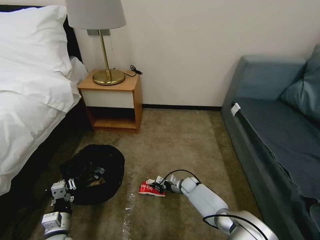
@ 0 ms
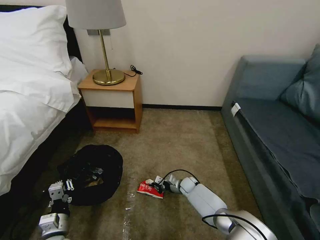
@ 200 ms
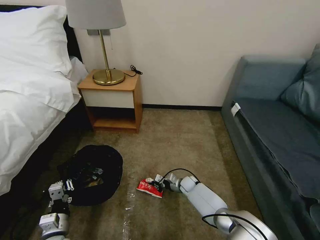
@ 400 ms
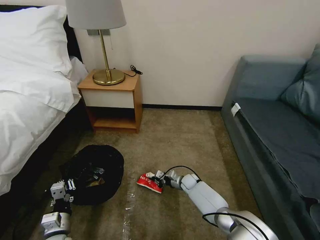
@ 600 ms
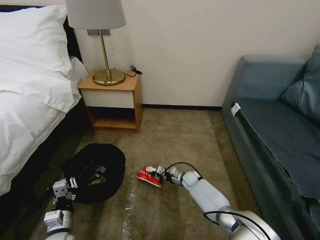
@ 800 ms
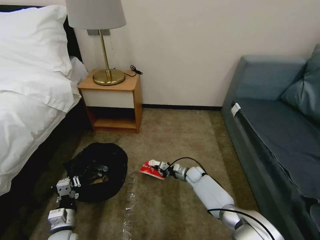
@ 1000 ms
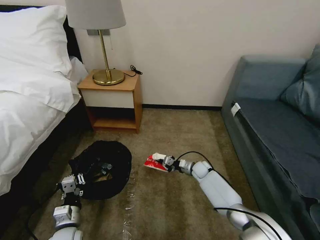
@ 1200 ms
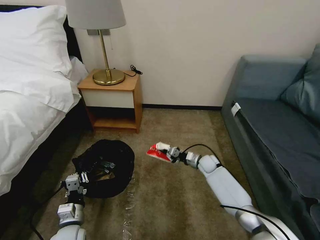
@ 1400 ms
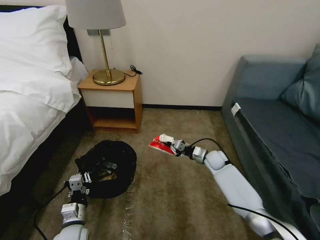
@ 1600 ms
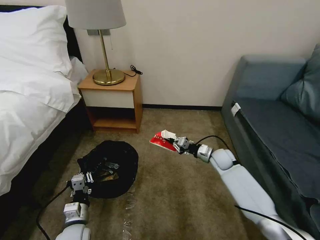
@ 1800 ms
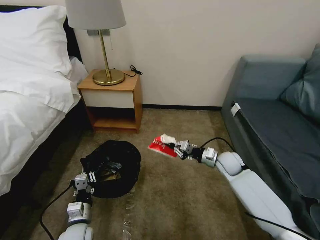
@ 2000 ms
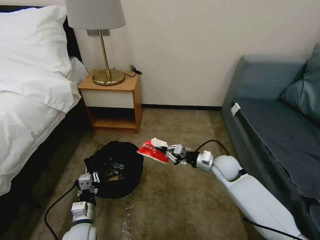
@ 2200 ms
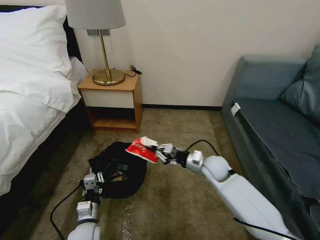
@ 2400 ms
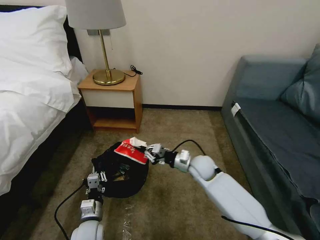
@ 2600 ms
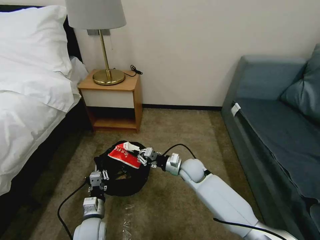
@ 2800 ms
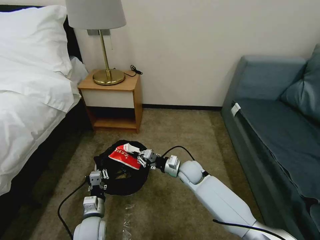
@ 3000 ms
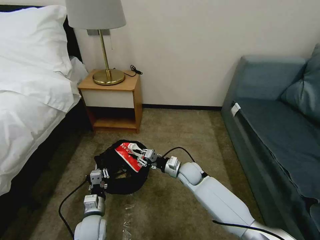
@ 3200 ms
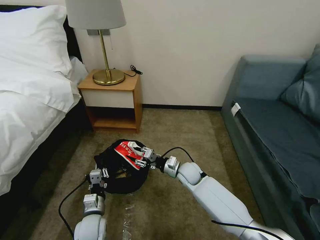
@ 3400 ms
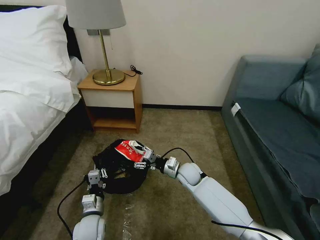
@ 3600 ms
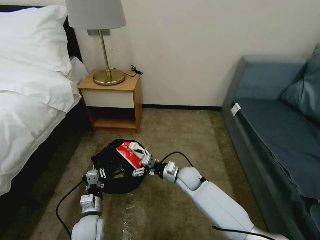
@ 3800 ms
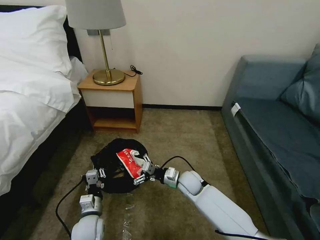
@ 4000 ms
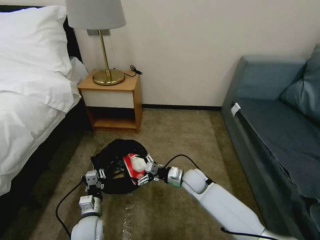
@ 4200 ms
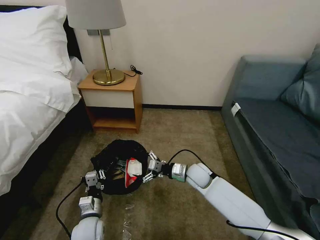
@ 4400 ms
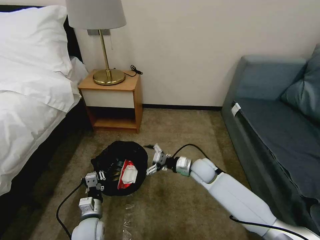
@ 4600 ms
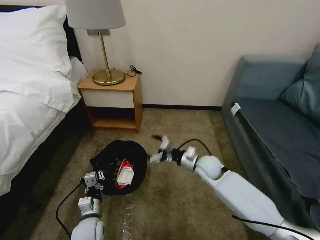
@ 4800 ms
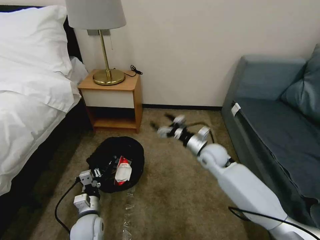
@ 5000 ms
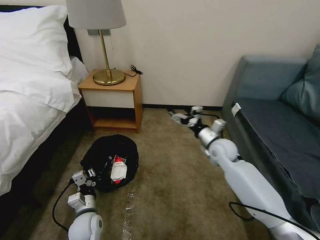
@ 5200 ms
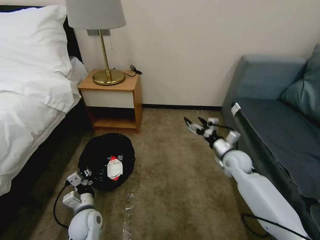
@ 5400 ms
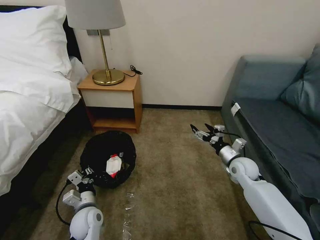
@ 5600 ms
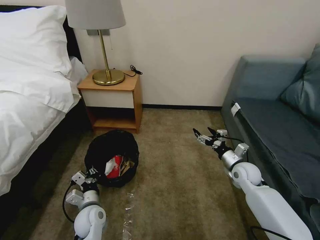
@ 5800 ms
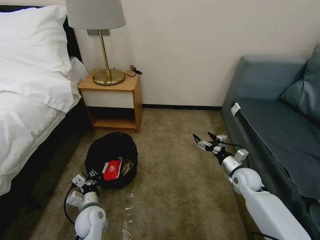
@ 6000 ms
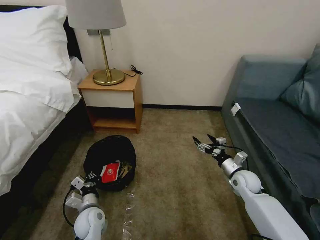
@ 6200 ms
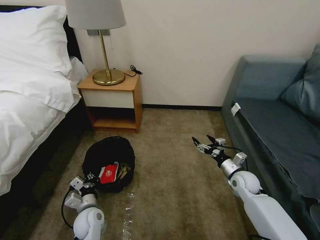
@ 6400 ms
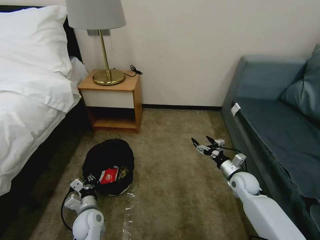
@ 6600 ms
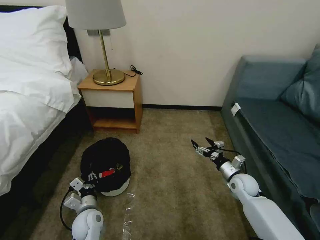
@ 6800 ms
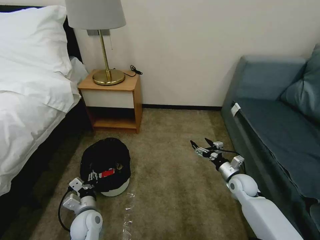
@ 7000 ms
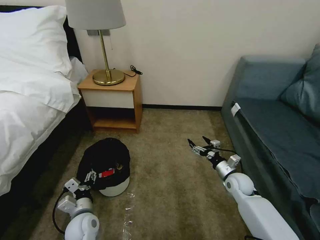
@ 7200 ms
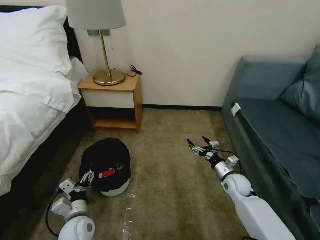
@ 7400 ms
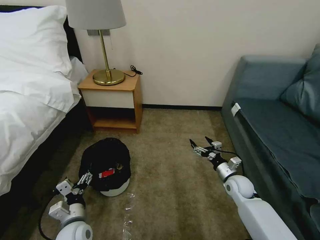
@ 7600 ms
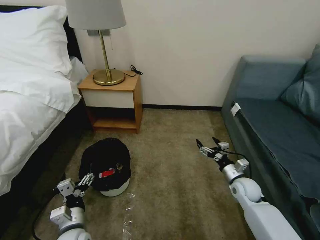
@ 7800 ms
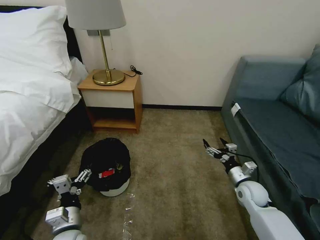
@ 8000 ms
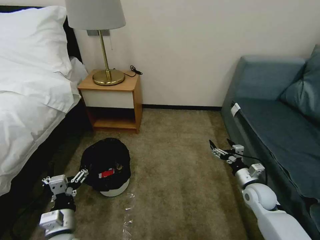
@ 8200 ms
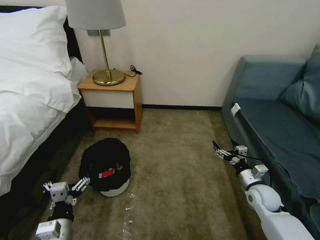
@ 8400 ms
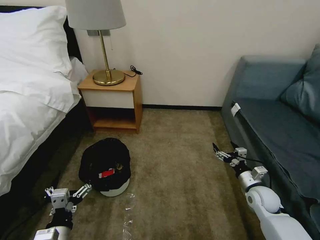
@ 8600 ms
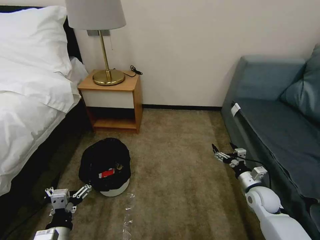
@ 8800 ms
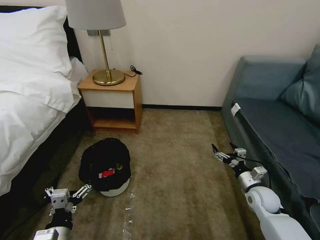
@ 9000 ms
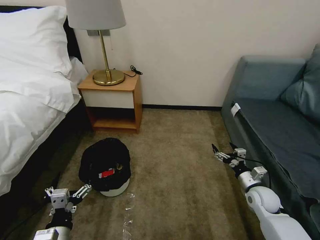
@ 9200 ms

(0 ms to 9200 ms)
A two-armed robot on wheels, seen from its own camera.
Task of the whole recording: Pick up the trash bin, then pick up the garbage on the floor and place it into the trash bin.
0 ms - 1600 ms: The right gripper is displaced upward and to the right by approximately 20 cm.
1600 ms - 3000 ms: The left gripper shifts by approximately 5 cm; the right gripper goes roughly 15 cm to the left and backward.
3000 ms - 4600 ms: The right gripper opens.
4600 ms - 6200 ms: The right gripper moves to the right, about 15 cm.
6200 ms - 7600 ms: The left gripper shifts about 5 cm backward, and opens up.
7600 ms - 9200 ms: The right gripper heads to the right and backward, covering some 10 cm, while the left gripper moves backward, roughly 10 cm.

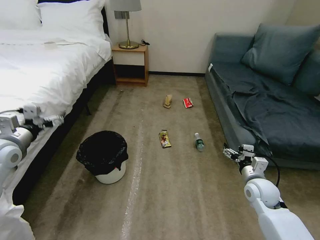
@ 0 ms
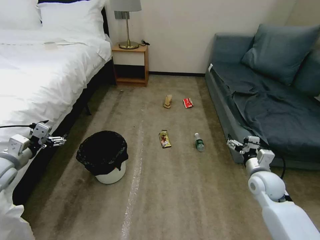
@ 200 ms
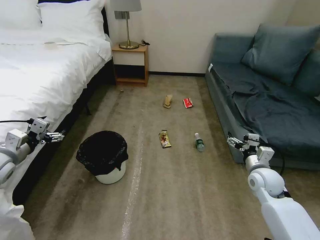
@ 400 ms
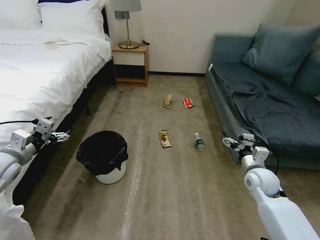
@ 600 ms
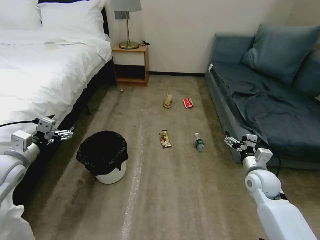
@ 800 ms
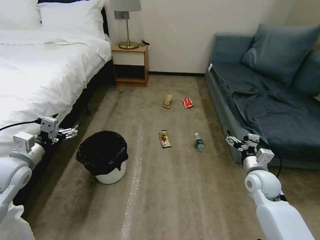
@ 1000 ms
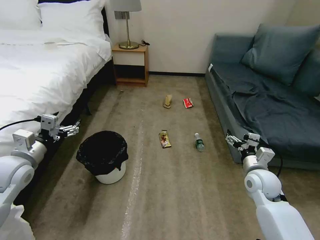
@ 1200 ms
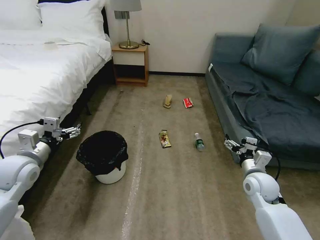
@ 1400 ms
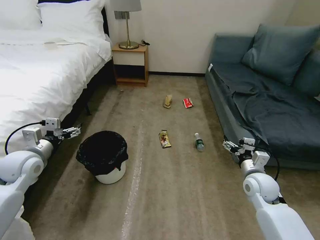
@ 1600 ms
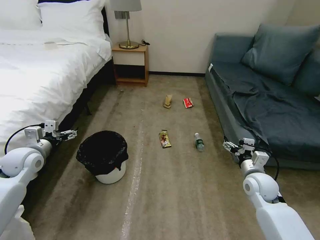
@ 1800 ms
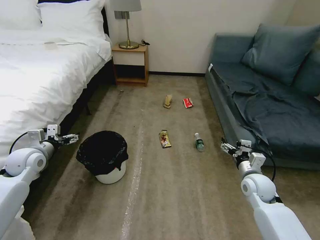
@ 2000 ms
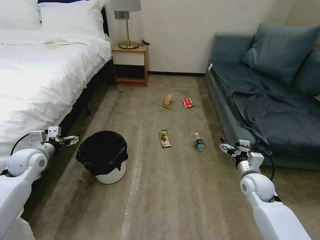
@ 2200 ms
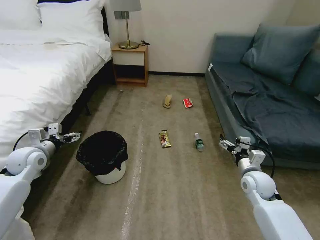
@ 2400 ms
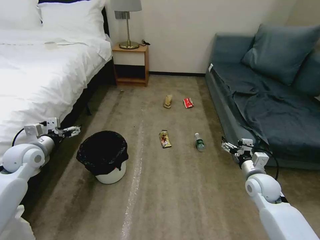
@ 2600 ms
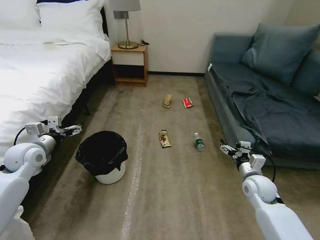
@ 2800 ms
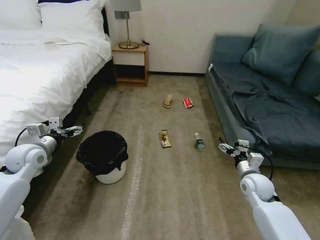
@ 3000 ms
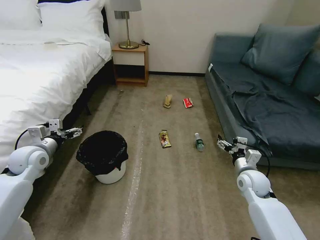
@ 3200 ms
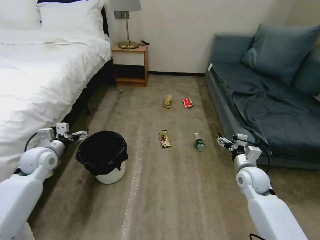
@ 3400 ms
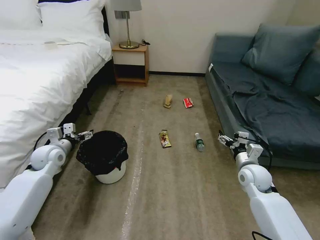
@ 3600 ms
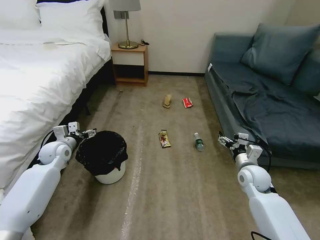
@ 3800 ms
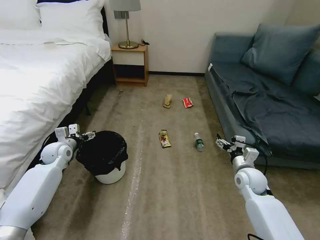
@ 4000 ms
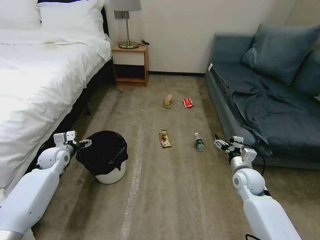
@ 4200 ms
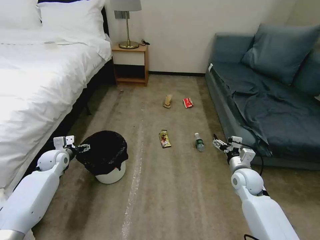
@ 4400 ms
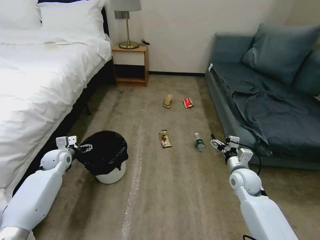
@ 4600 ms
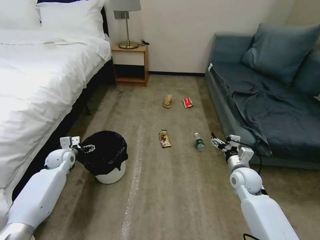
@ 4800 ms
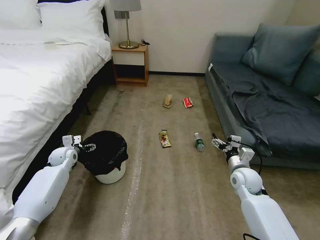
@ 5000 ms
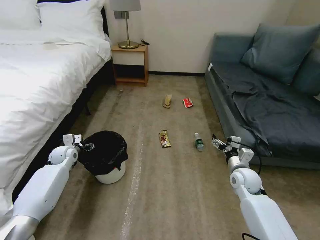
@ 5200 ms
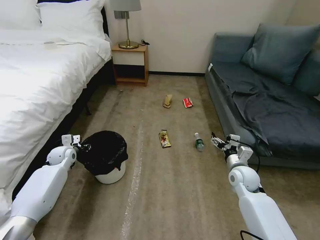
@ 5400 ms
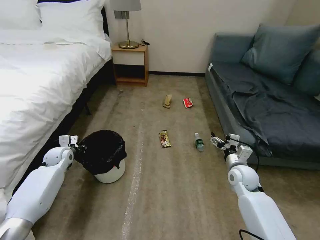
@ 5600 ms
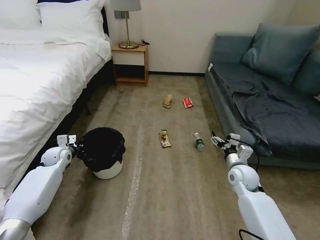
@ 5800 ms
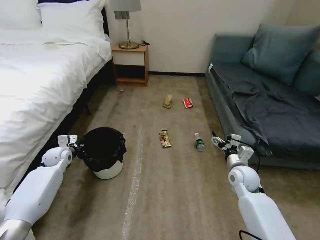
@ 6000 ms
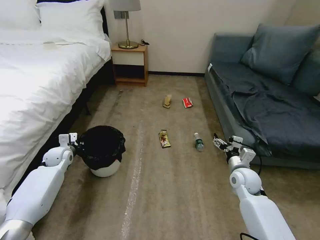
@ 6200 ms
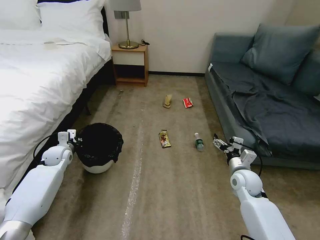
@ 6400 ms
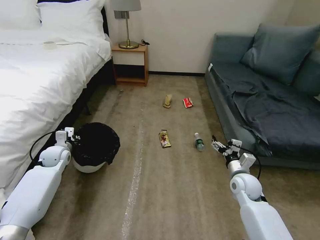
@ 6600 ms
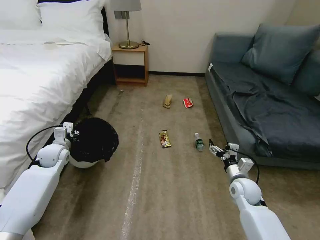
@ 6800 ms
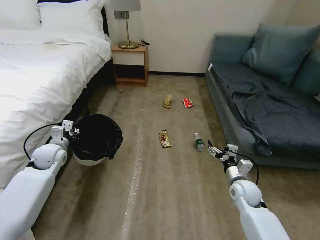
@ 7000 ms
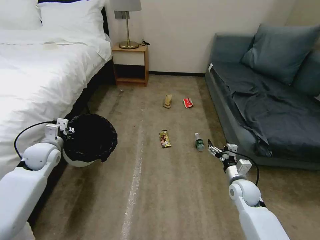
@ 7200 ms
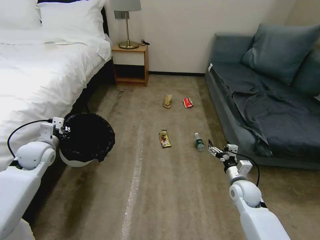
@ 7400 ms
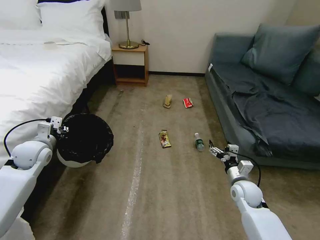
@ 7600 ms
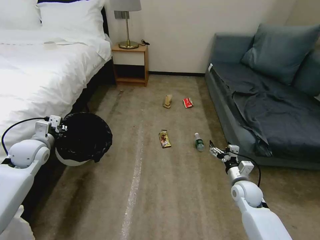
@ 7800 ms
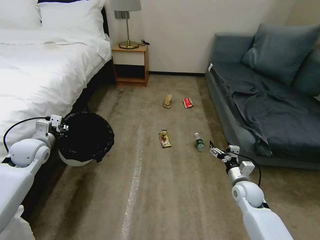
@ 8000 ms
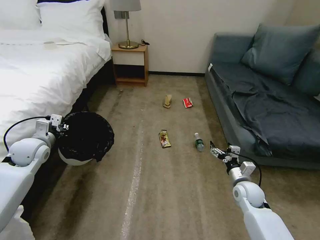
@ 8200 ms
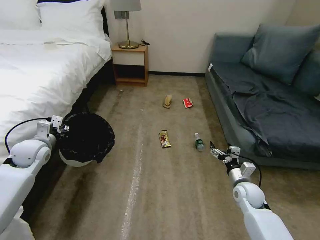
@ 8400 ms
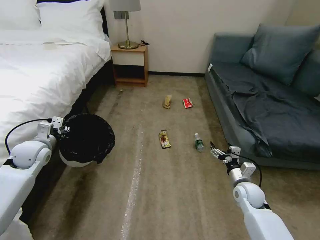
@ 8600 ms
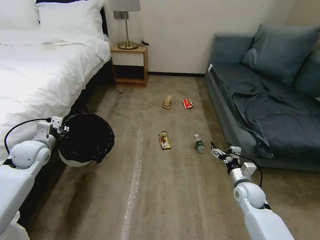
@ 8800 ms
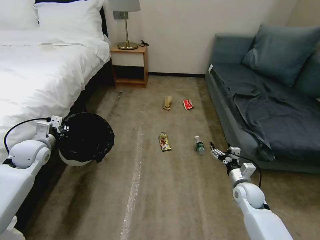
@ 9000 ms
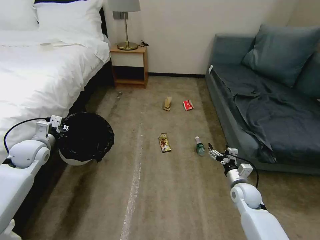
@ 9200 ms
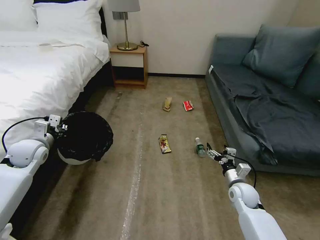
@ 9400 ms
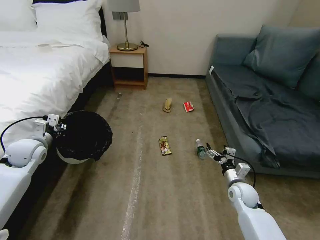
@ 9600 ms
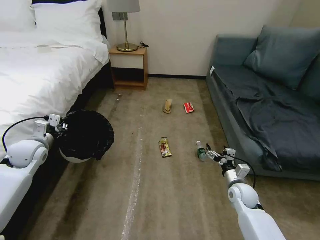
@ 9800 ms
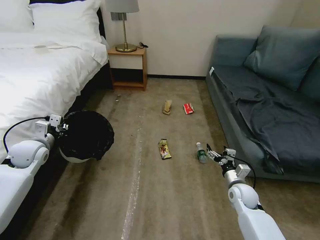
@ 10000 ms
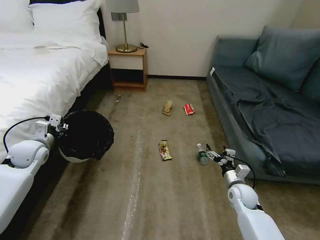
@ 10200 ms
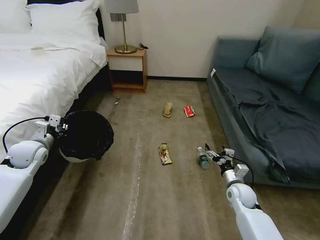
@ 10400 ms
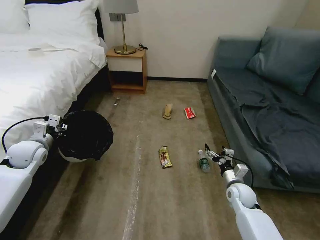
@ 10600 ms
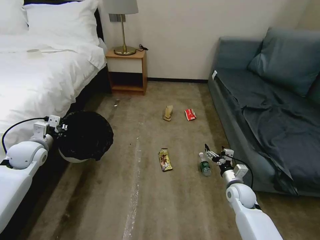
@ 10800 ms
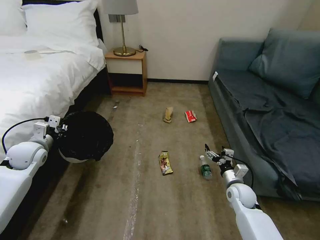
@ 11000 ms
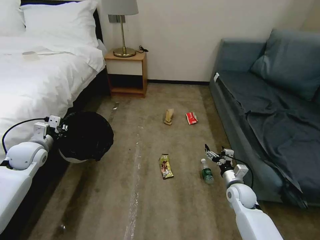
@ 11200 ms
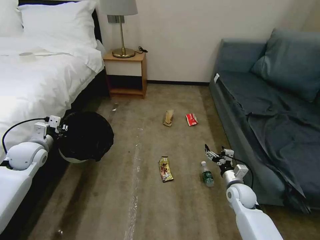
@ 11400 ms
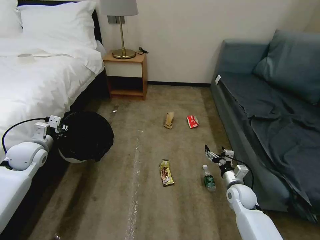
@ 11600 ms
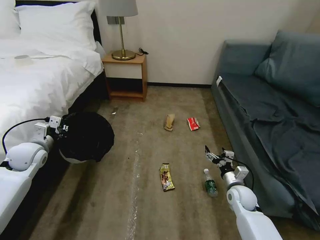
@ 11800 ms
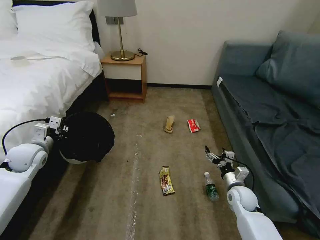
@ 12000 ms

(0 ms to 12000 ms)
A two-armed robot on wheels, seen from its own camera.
Task of the whole recording: Pick up the trash bin, then pick up the garbage on the floor and place it into the trash bin.
1600 ms - 3000 ms: The grippers stay close to where they were, moving slightly.
3000 ms - 4400 ms: The left gripper is displaced downward and forward by roughly 15 cm.
4400 ms - 6000 ms: The left gripper closes up.
6000 ms - 7600 ms: The right gripper changes place by approximately 5 cm, while the left gripper shifts approximately 15 cm upward and backward.
7600 ms - 10400 ms: The grippers stay close to where they were, moving slightly.

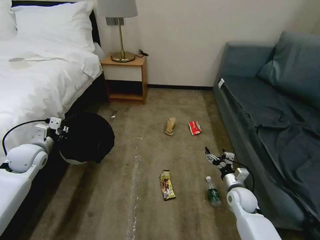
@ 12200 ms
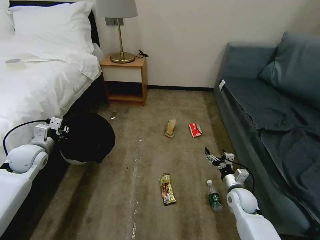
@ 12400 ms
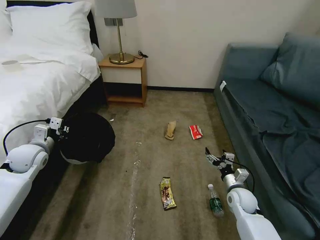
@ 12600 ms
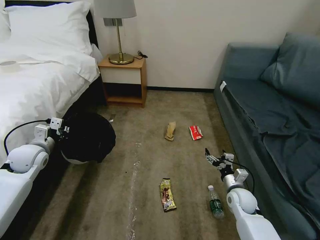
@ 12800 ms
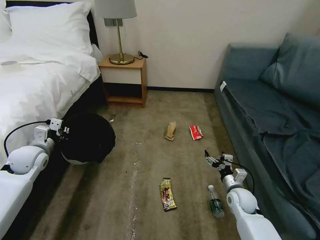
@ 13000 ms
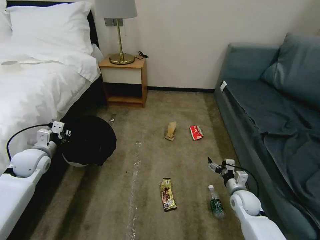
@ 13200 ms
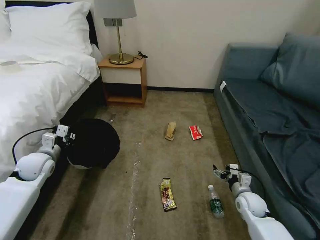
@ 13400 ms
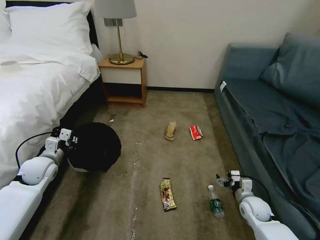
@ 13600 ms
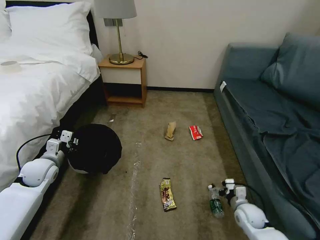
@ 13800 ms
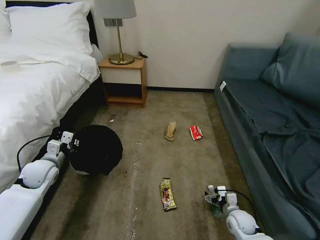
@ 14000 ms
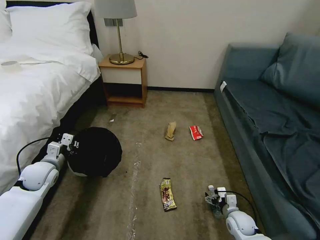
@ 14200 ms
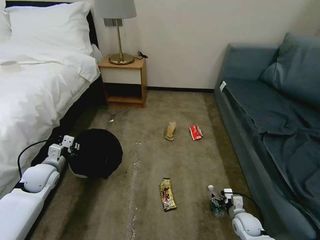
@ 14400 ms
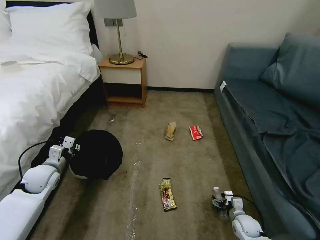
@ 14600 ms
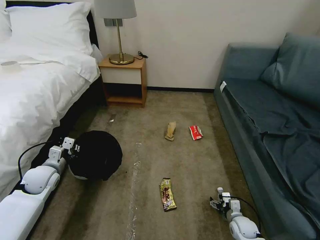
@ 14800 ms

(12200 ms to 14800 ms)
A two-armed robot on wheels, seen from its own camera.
Task of the whole recording: Pick up the trash bin, then pick up the garbage on the floor and place it into the trash bin.
13400 ms - 14800 ms: The right gripper shifts about 15 cm downward and backward.
